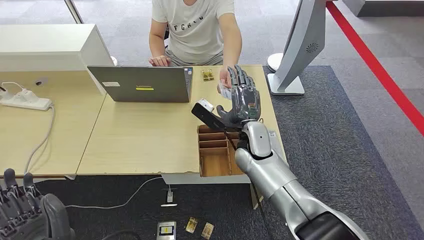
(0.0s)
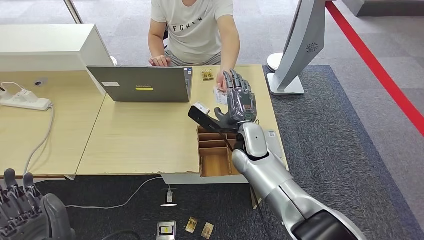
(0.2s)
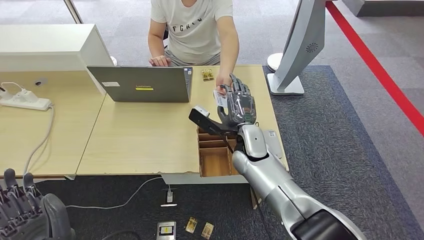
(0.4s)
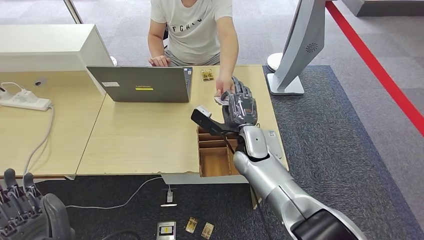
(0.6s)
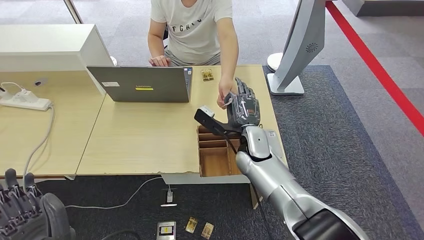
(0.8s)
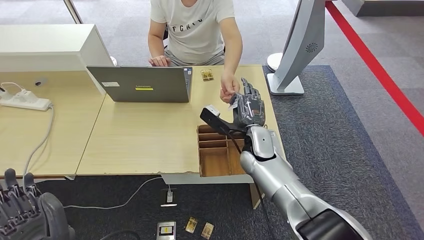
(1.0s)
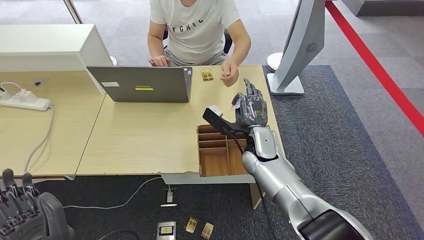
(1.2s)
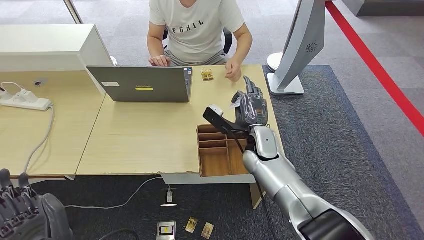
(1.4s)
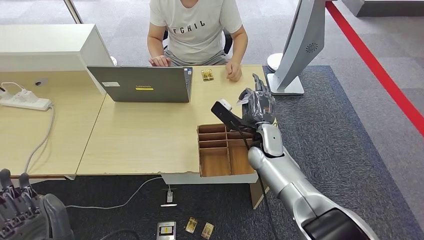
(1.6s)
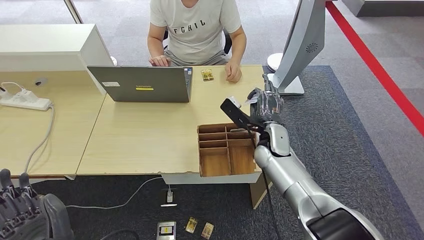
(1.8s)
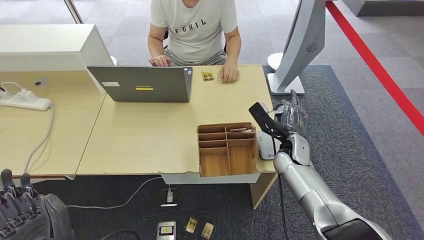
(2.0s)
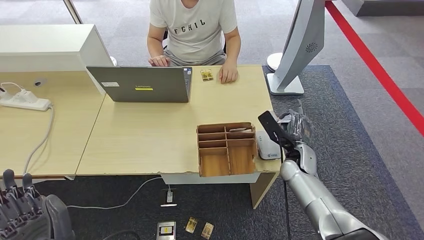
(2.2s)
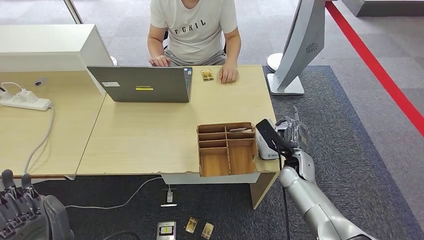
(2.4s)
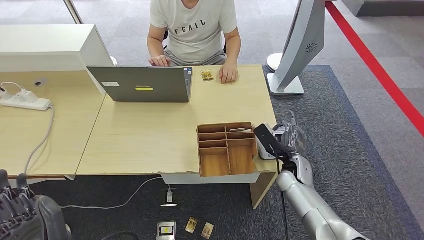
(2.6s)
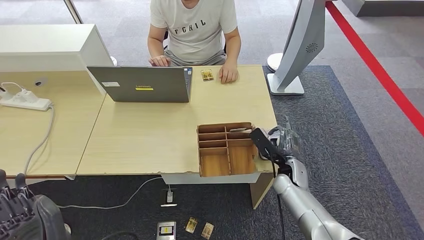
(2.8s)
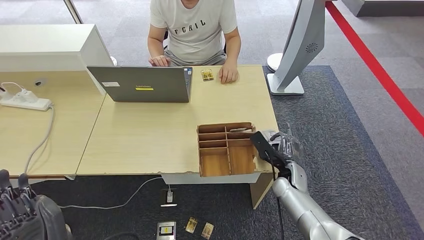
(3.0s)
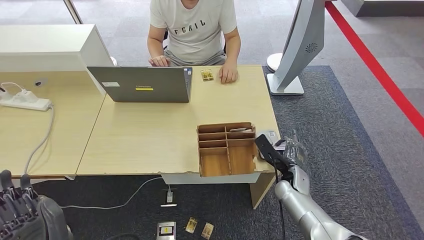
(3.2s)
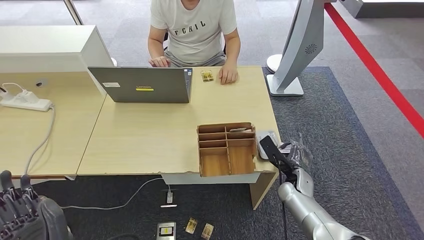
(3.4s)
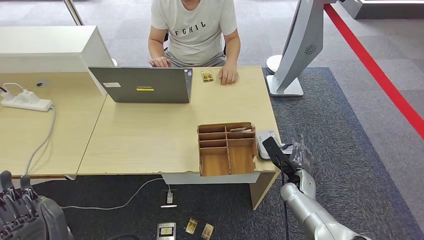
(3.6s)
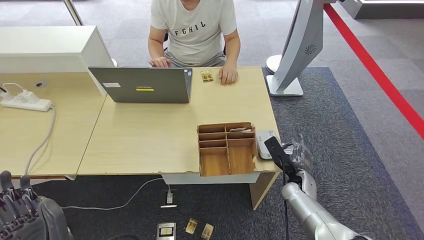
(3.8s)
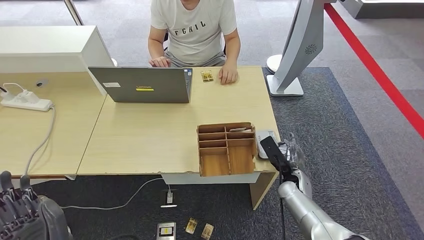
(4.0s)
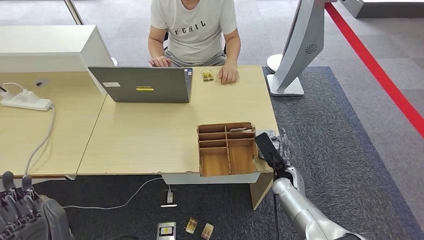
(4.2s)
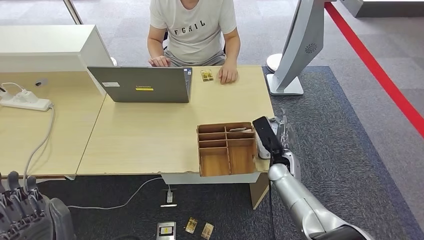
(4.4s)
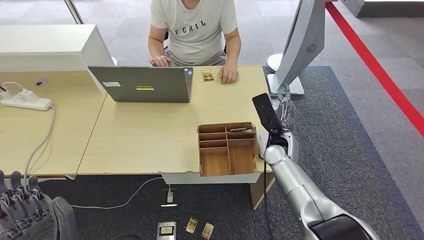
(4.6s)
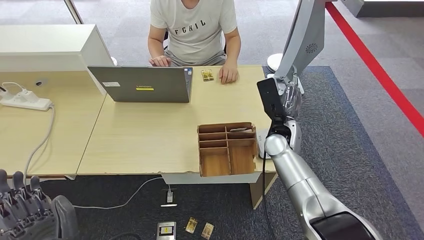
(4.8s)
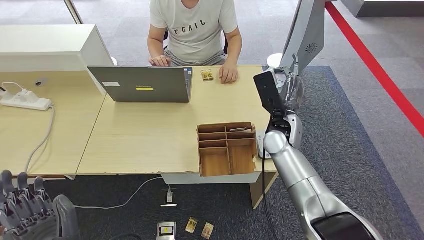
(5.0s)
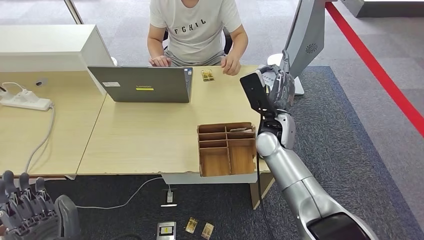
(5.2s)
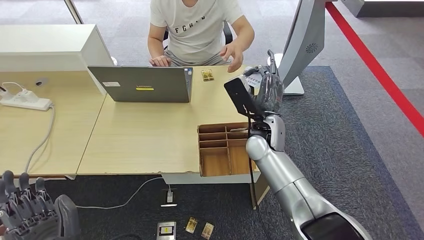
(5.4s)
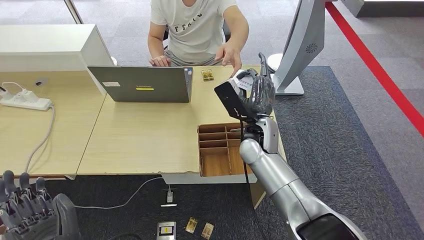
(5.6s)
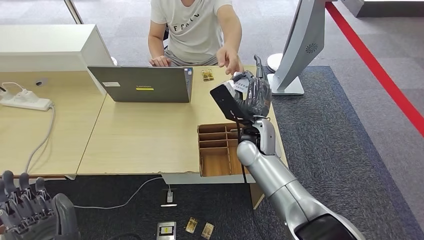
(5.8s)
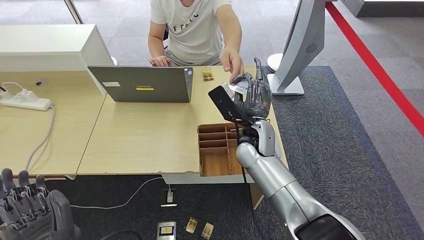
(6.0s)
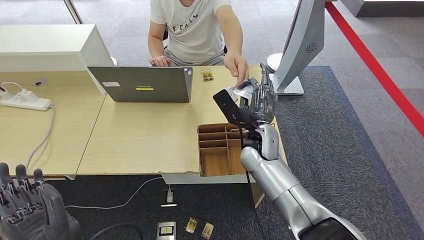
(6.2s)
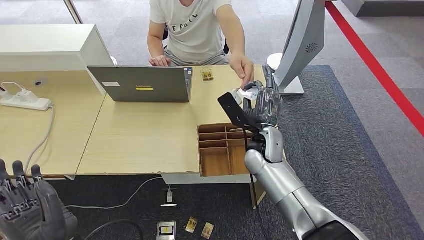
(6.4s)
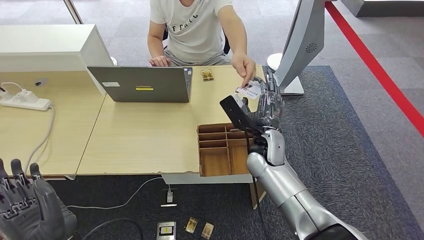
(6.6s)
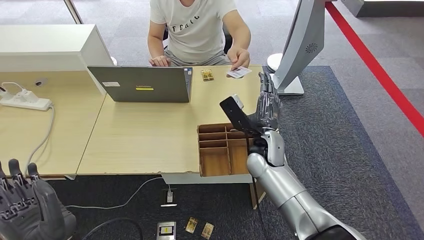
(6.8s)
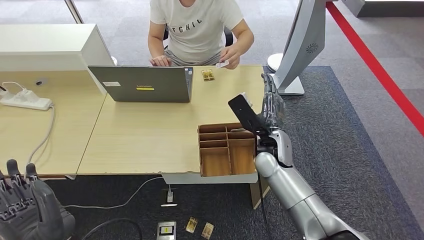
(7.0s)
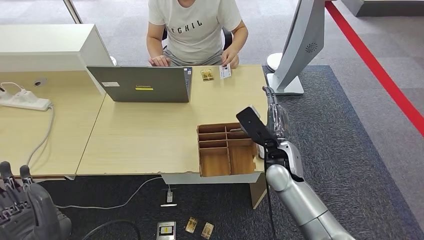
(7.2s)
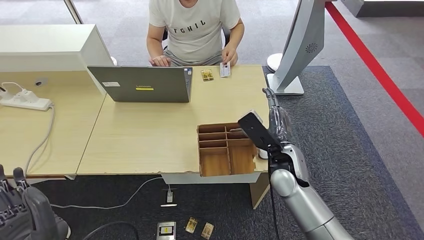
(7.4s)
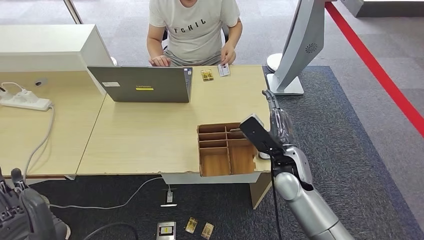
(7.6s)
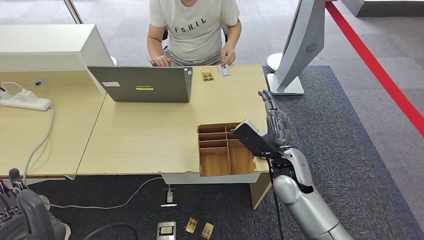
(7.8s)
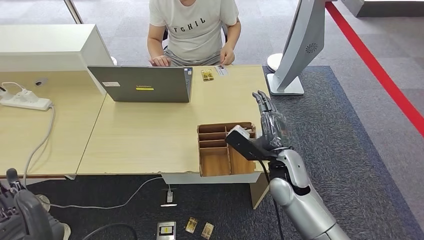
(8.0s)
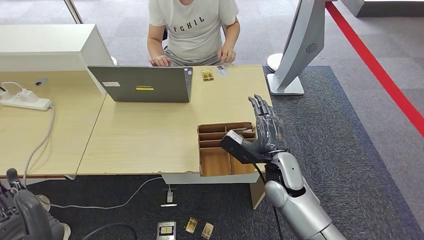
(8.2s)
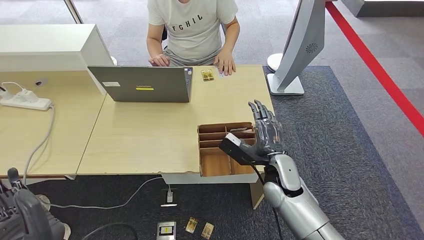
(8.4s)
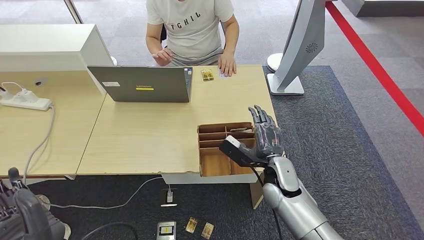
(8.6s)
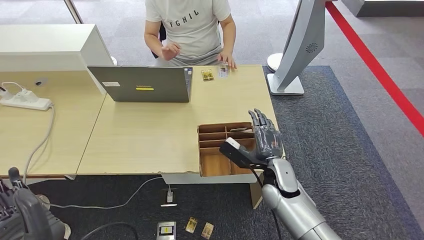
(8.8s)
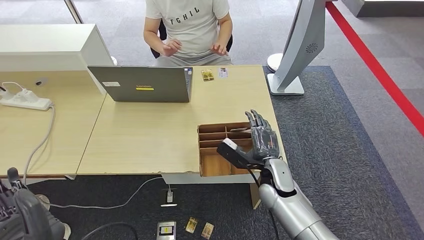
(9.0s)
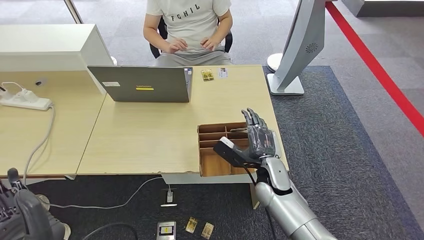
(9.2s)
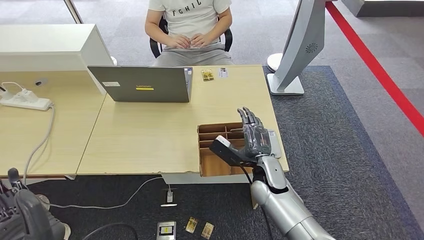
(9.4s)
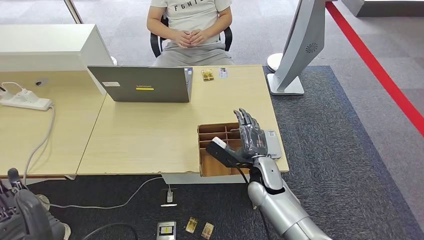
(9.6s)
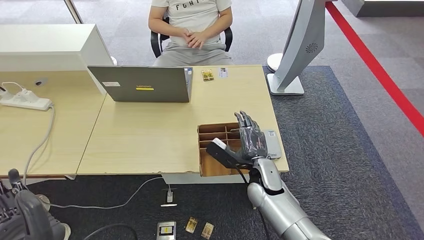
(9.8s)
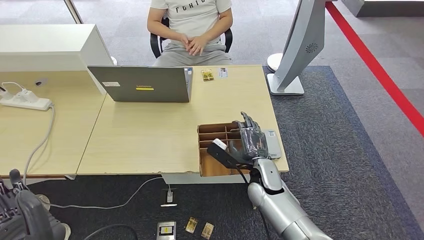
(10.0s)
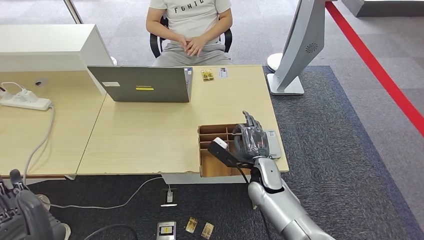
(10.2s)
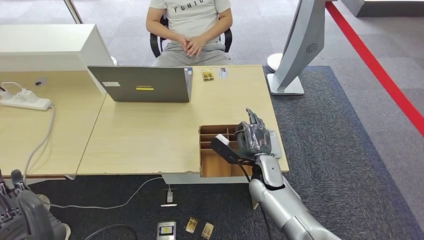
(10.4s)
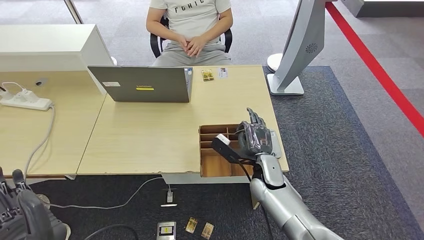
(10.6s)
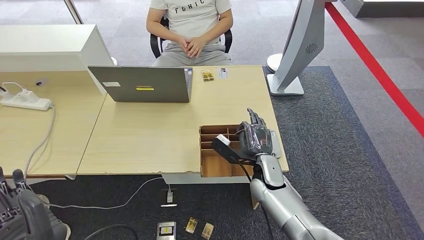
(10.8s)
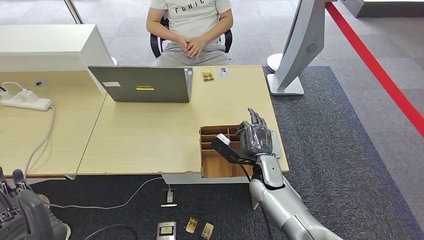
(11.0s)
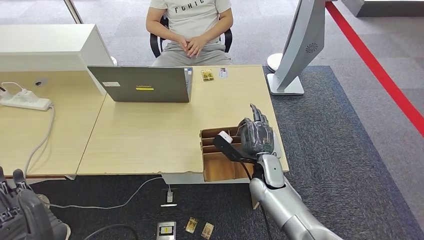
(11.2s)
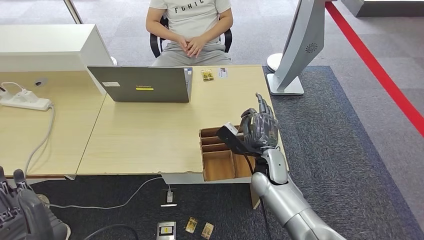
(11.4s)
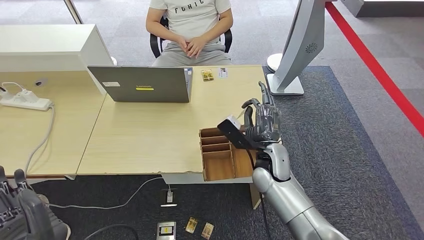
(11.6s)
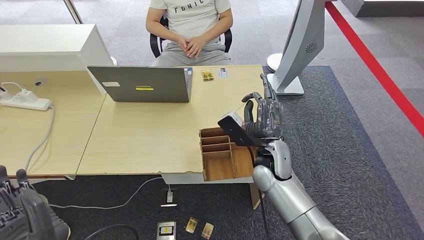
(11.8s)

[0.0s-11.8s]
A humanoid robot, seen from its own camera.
Step, 0.0s to 1.8s: Take the ID card from the person's hand.
Step, 2.2s to 5.6s: Place the ID card on the card reader.
Step, 5.8s to 7.6s: Hand the ID card to the person.
1.4s to 3.0s: The right hand travels downward and to the right by some 15 cm.
3.0s to 4.4s: There are only small adjustments of the hands.
4.4s to 6.0s: The right hand goes roughly 15 cm upward and to the left.
6.0s to 7.4s: The right hand heads to the right and backward, covering roughly 10 cm.
7.4s to 8.8s: The right hand goes some 5 cm downward.
8.8s to 10.4s: There are only small adjustments of the hands.
10.4s to 11.8s: The right hand is displaced upward by approximately 5 cm.

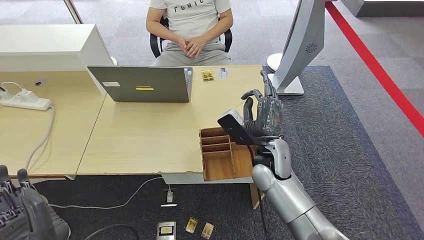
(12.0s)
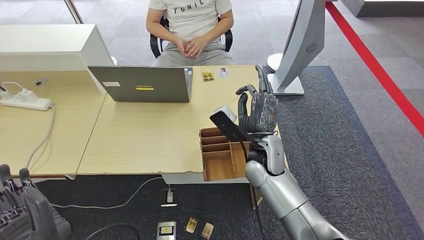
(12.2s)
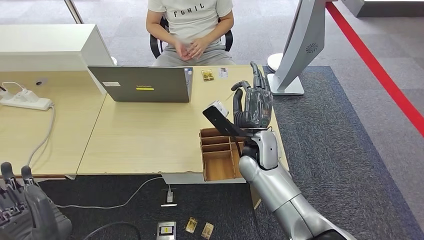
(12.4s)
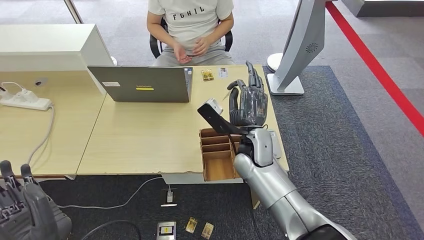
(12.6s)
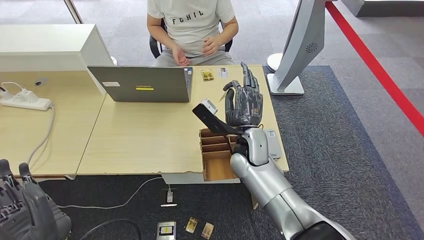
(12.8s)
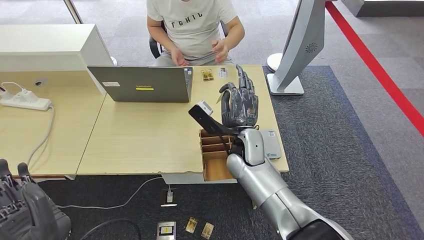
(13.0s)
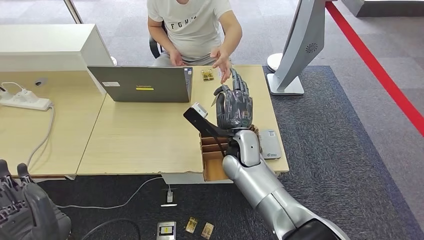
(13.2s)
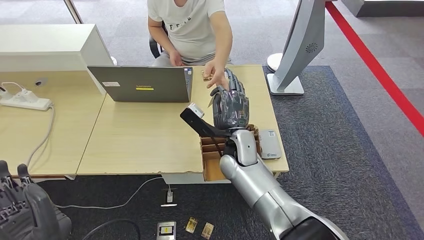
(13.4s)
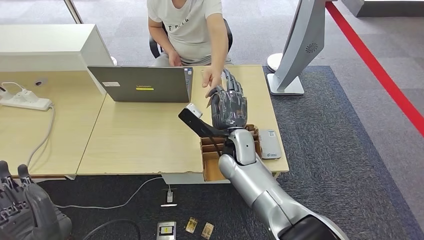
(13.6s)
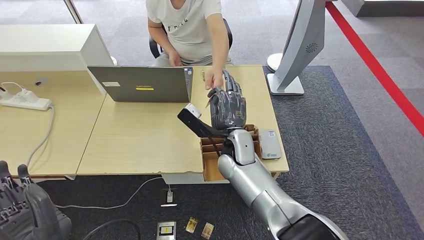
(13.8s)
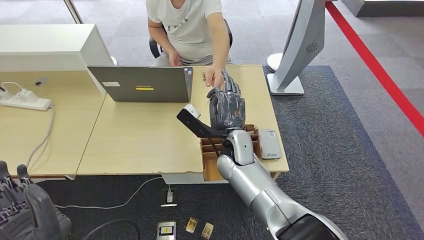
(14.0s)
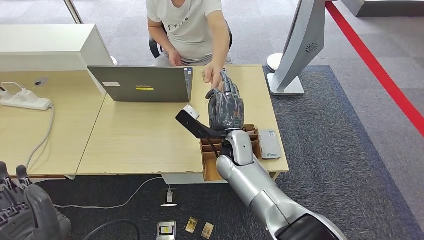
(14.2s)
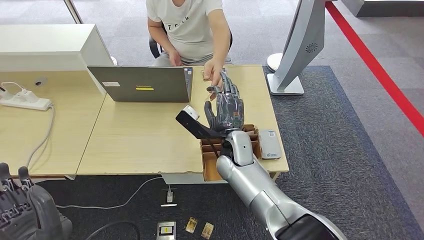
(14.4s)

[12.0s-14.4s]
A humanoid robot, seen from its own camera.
Step, 13.2s to 14.4s: Hand the room key to the person.
12.0s to 13.2s: The right hand heads to the left, covering roughly 5 cm.
13.2s to 14.4s: The hands make only small movements.
